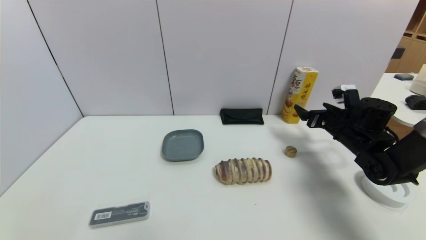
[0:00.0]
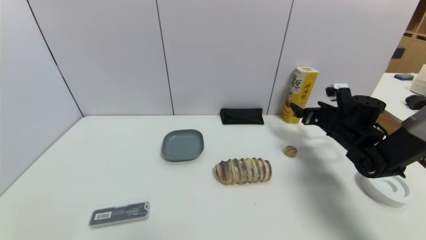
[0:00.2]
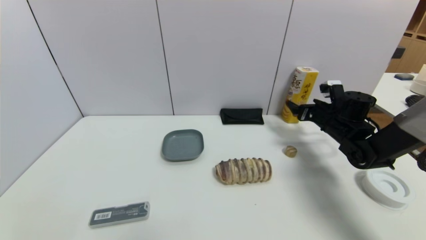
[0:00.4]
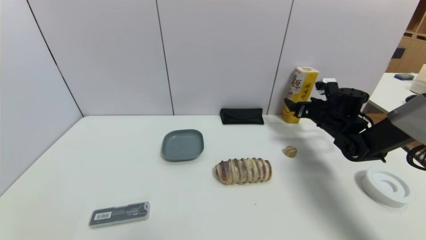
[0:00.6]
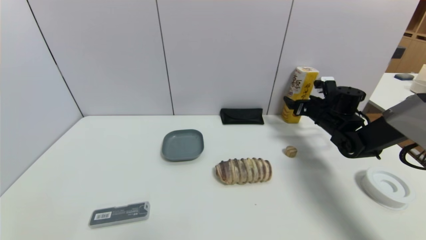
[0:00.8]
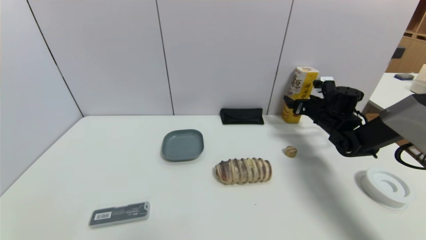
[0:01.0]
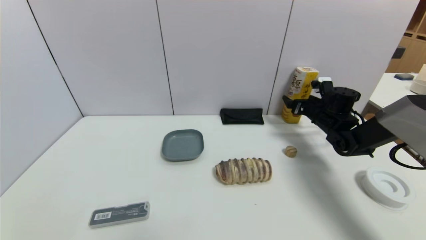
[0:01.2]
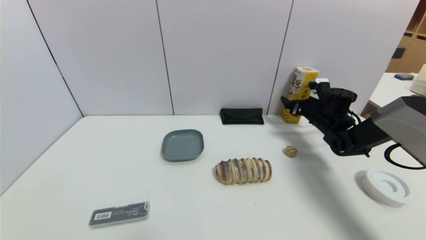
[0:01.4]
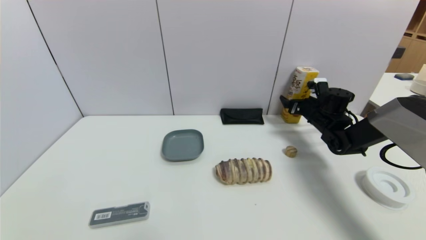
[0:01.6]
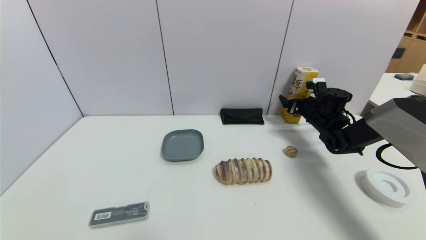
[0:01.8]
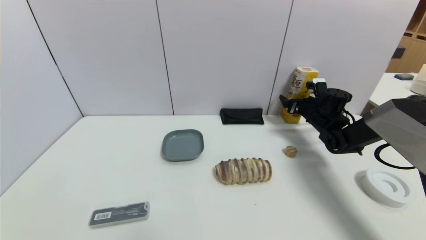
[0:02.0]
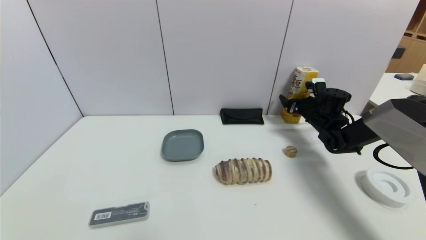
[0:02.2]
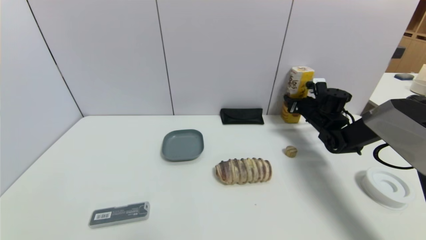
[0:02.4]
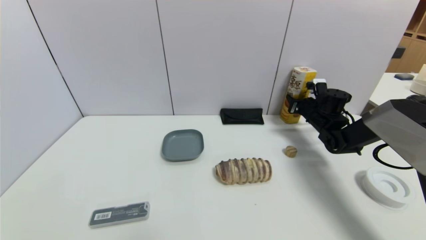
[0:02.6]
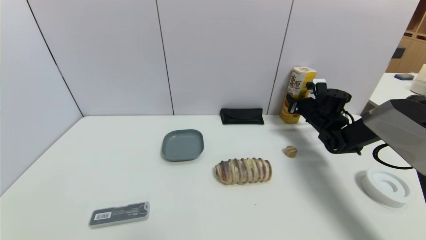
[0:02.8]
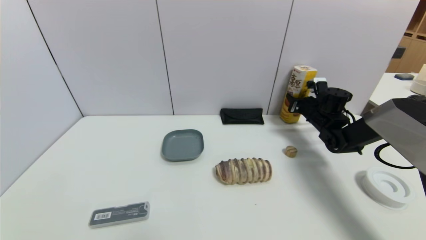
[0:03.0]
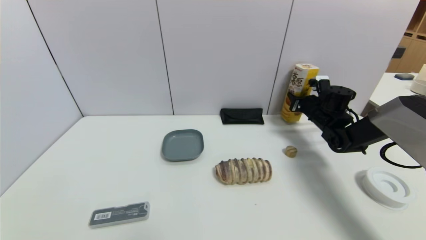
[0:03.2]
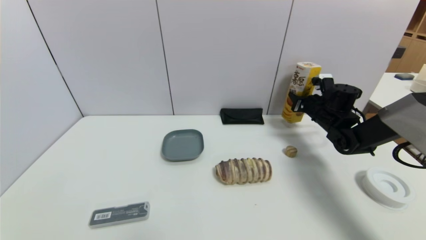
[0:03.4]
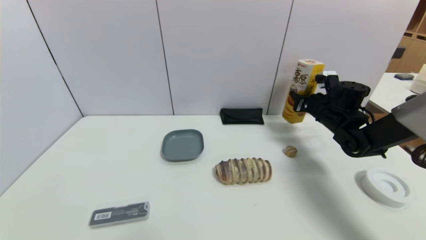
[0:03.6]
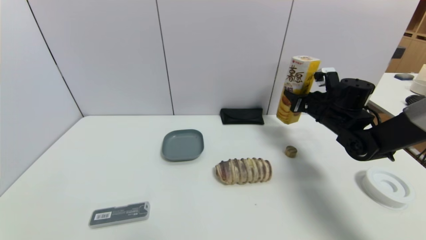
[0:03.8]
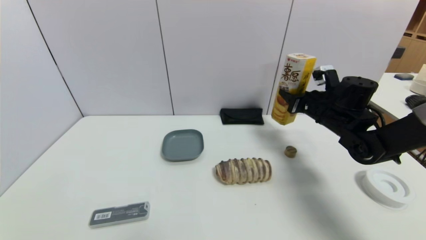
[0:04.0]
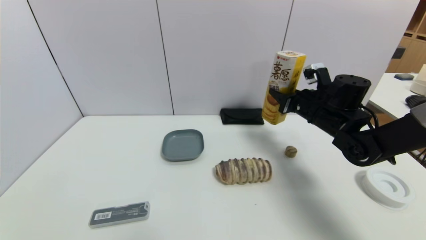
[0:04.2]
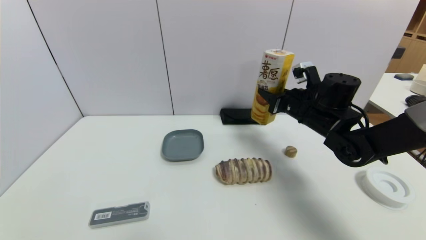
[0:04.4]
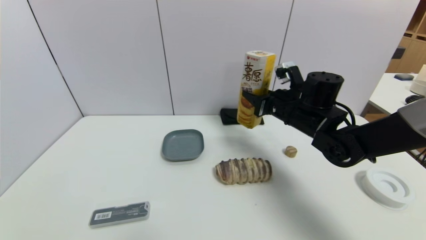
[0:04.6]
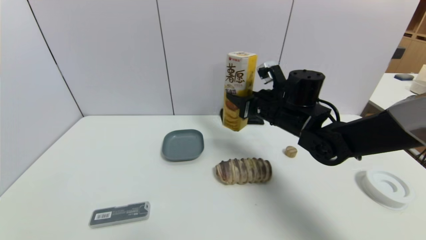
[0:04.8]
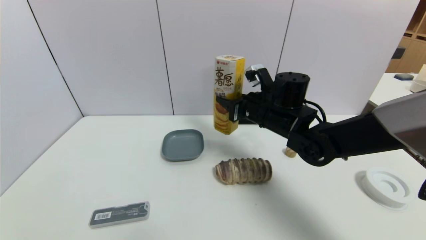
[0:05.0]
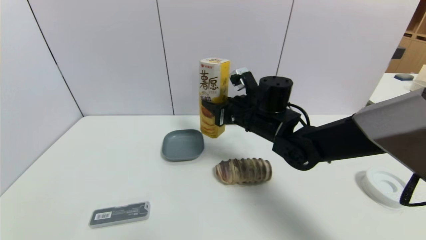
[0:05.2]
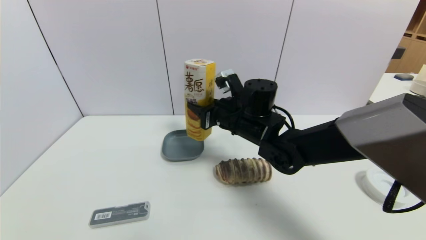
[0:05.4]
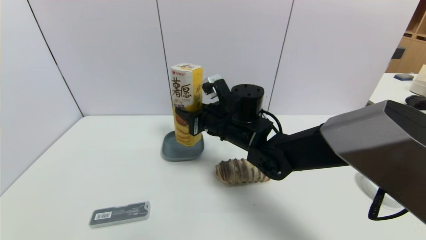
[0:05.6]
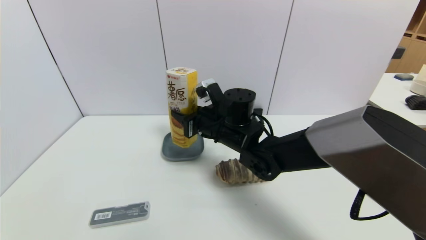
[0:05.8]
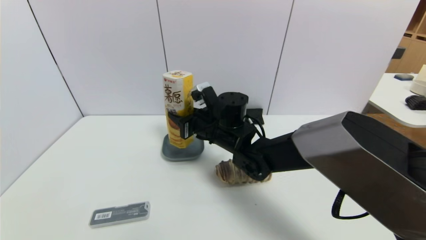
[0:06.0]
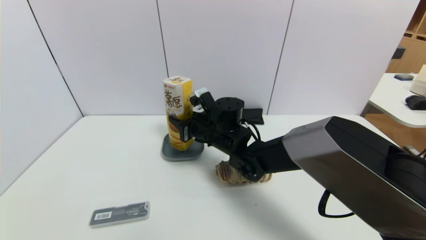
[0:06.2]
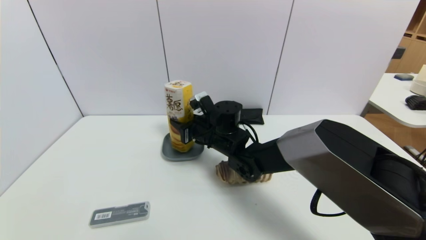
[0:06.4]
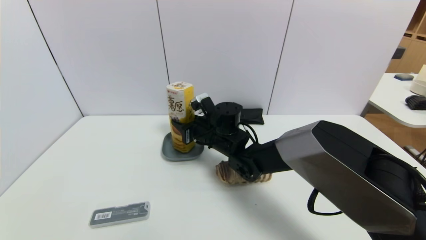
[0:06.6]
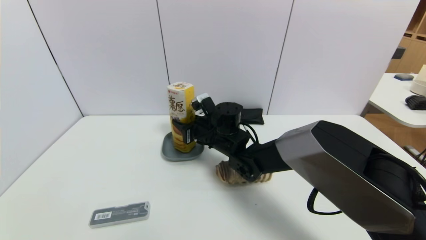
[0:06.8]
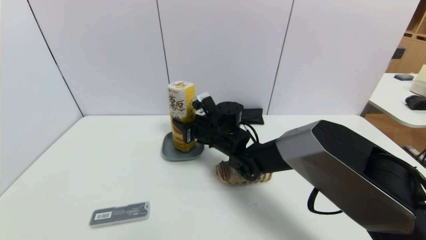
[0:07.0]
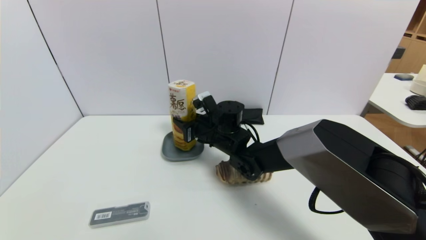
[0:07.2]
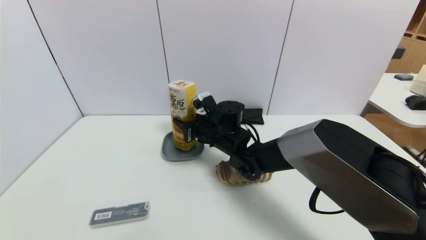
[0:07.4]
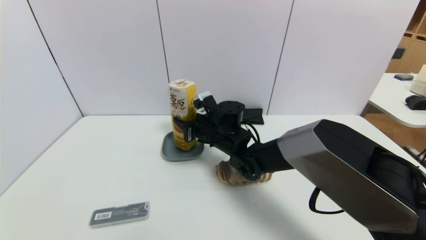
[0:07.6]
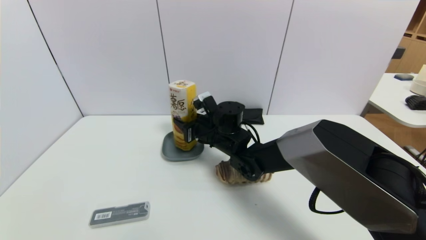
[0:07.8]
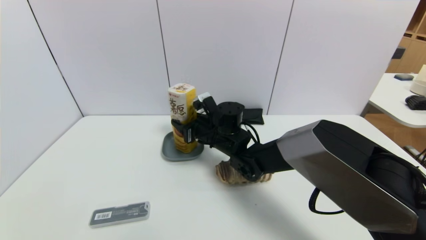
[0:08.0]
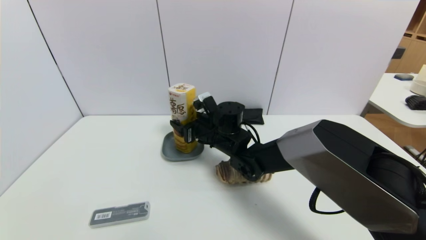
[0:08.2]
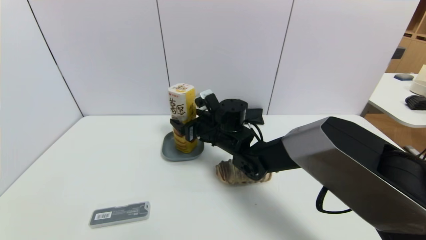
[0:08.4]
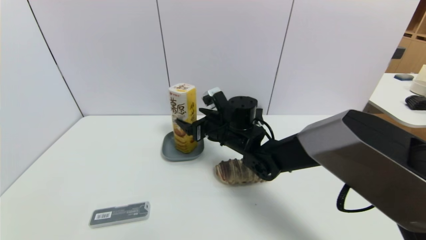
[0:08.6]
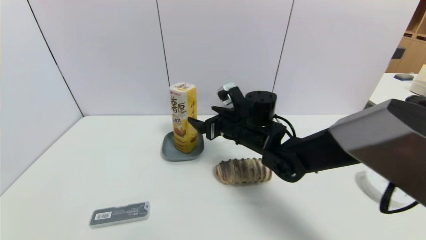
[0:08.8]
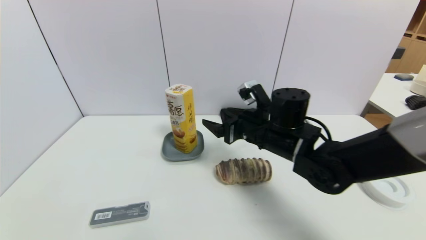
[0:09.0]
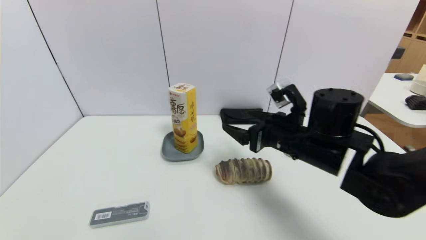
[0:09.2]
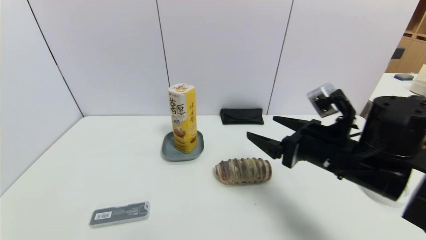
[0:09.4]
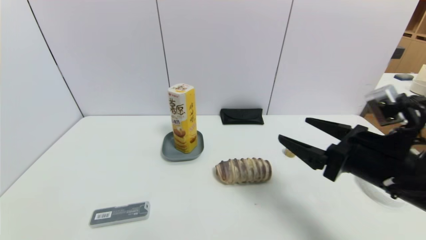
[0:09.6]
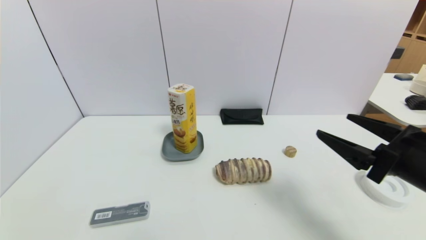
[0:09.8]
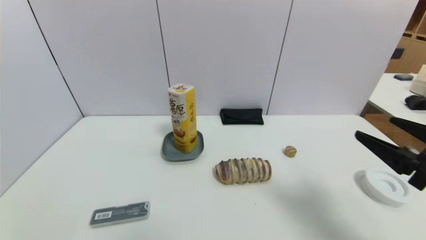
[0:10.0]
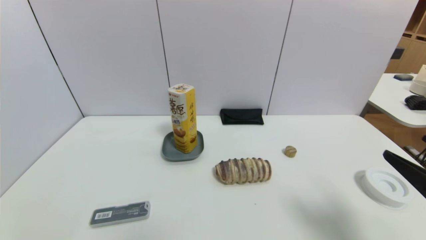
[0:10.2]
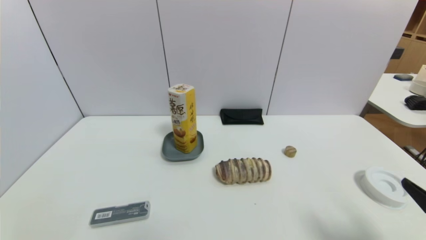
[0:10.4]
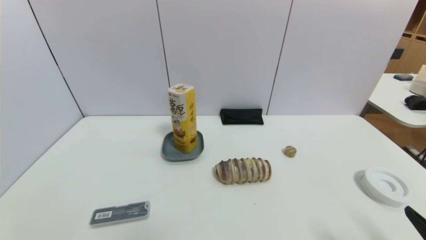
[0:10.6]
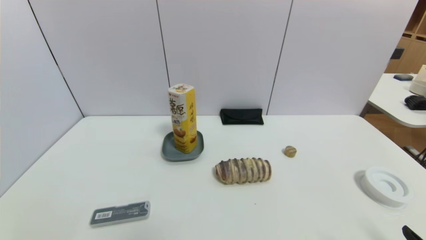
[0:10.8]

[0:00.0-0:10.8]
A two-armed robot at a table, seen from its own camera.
Task of the whole recording: use a gripper to pick the target object and place on the dish.
Step, 0:00.0 to 0:02.8: Grasp the potato chips with the right gripper.
Step, 0:03.0 to 0:08.8: Place the potato chips on the dish with the right gripper.
0:00.0 to 0:01.6: The right gripper moves forward, roughly 10 cm.
0:01.6 to 0:03.0: The right gripper closes.
0:03.0 to 0:04.6: The right gripper is displaced to the left, backward and upward by some 20 cm.
0:04.6 to 0:06.2: The right gripper moves to the left, roughly 15 cm.
0:06.2 to 0:07.8: The grippers make only small movements.
0:07.8 to 0:09.2: The right gripper heads to the right, backward and upward, covering about 20 cm, and opens.
0:09.2 to 0:10.8: The right gripper is displaced backward and to the right by some 30 cm.

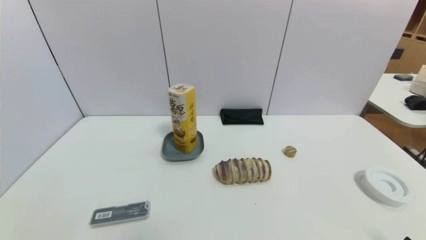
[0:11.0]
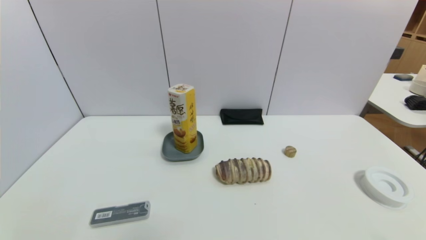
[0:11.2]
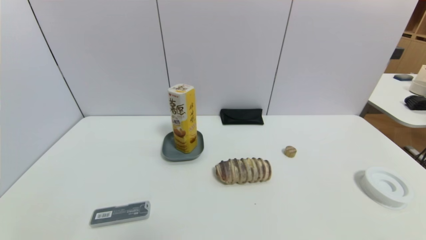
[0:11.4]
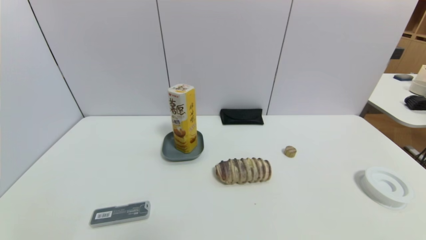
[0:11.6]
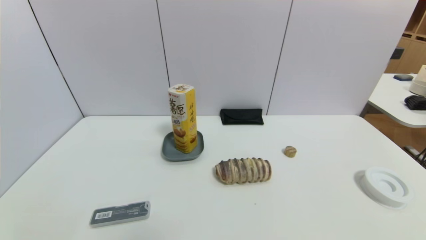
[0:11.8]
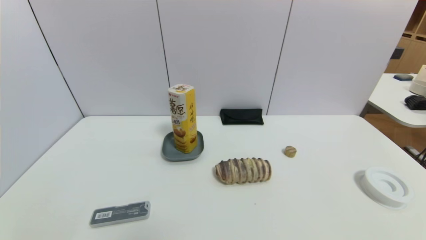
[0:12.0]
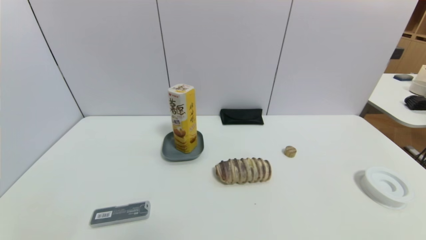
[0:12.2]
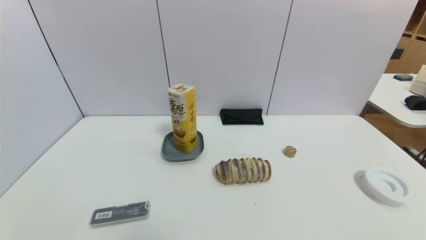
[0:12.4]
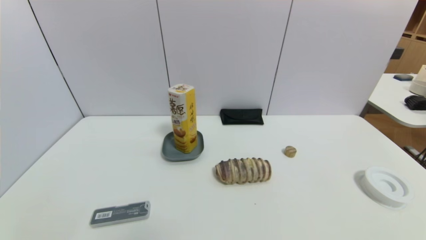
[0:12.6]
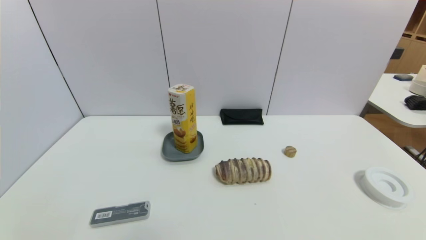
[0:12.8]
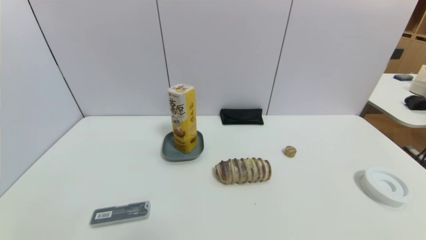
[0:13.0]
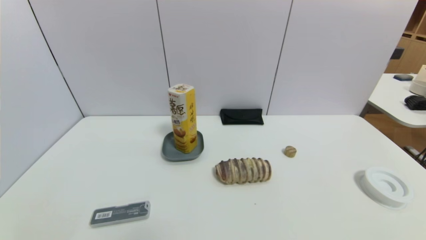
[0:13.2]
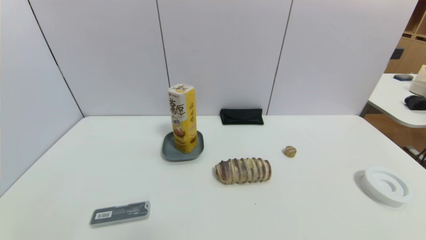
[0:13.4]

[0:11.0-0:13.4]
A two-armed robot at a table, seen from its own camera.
Task of the whole recording: use a gripper to pick the target object and place on the dish.
0:12.2 to 0:13.4: Both grippers stay about where they are.
